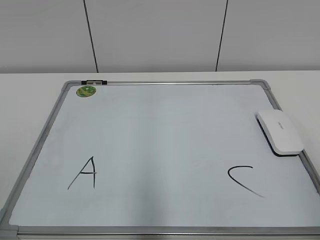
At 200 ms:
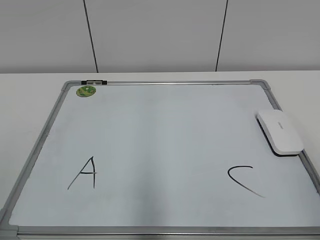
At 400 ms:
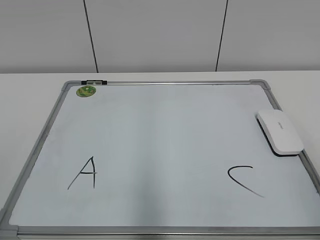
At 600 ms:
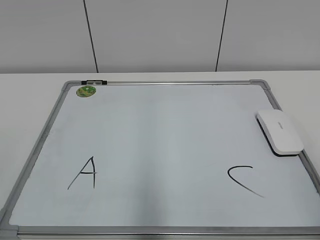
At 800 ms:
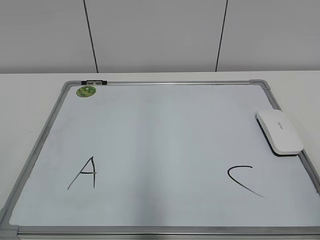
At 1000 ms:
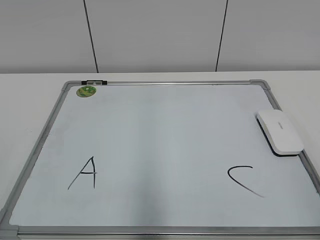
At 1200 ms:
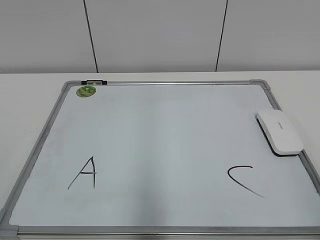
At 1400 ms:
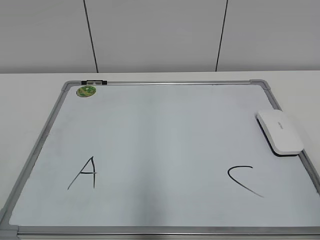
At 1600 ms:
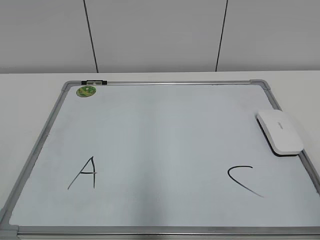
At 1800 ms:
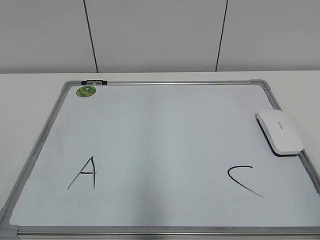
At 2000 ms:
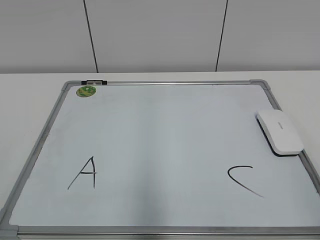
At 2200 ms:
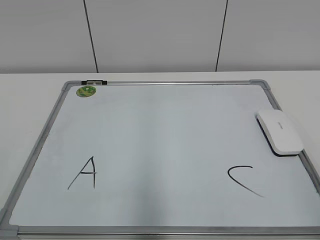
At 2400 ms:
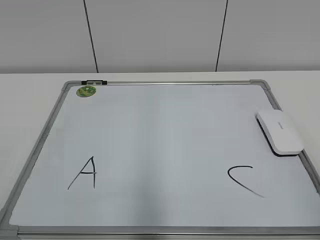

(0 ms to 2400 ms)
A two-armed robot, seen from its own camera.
Task of the whole recording: pick up the eraser on the blackboard and erase the letter "B".
1200 ms - 2400 ms: Both grippers stay about where they are.
